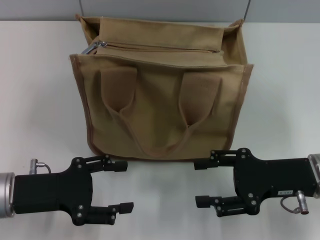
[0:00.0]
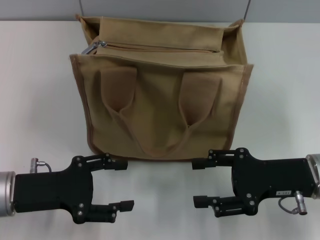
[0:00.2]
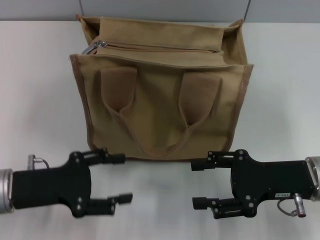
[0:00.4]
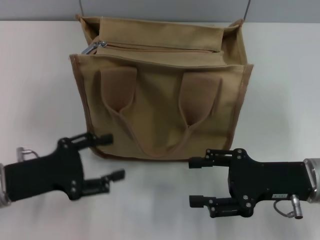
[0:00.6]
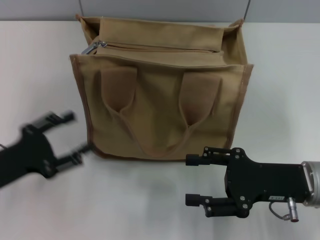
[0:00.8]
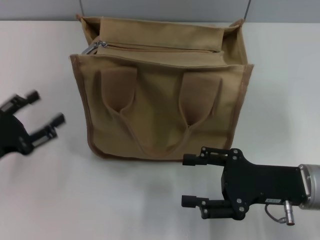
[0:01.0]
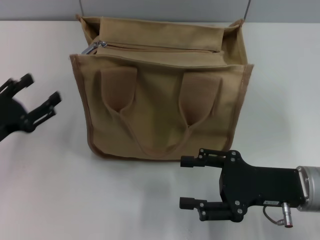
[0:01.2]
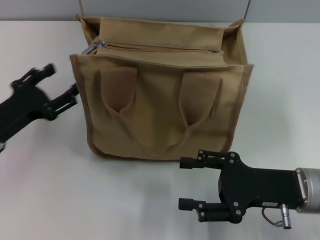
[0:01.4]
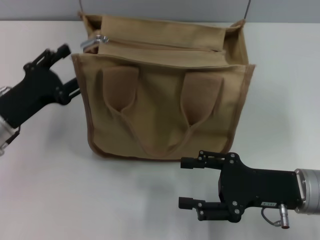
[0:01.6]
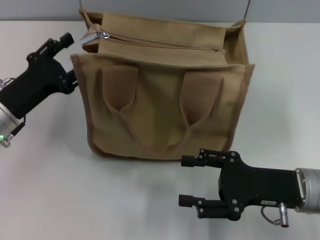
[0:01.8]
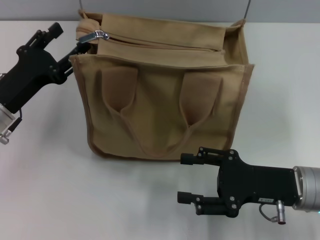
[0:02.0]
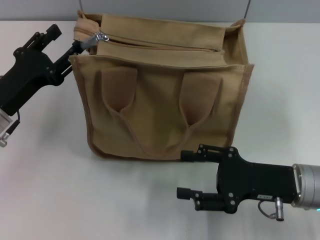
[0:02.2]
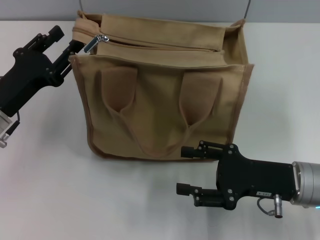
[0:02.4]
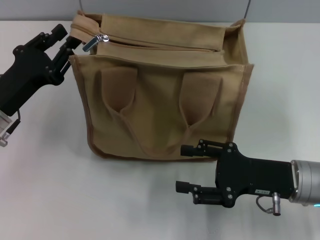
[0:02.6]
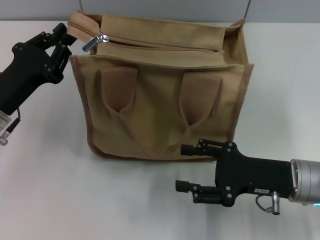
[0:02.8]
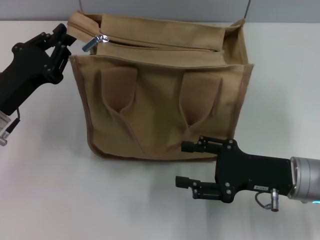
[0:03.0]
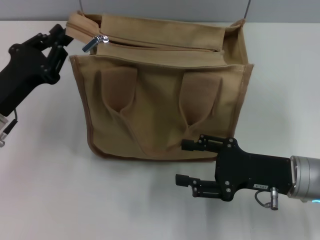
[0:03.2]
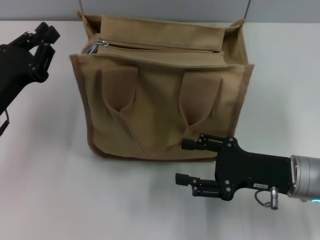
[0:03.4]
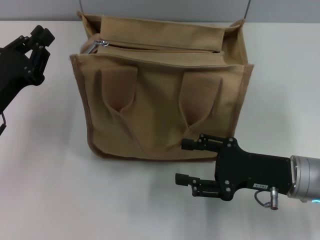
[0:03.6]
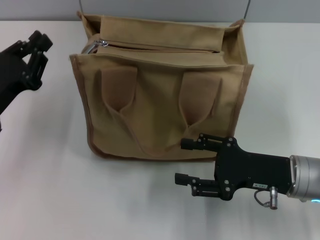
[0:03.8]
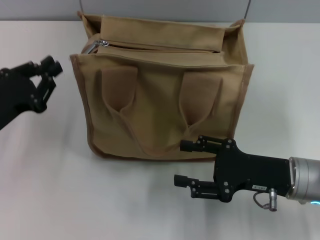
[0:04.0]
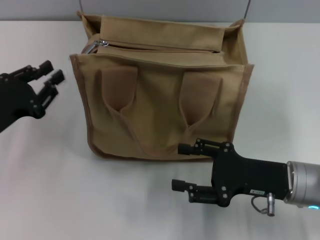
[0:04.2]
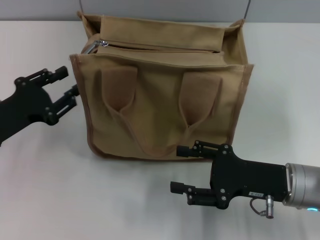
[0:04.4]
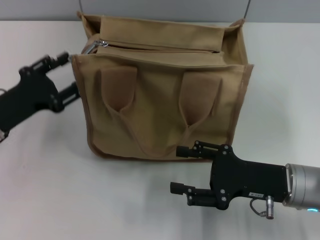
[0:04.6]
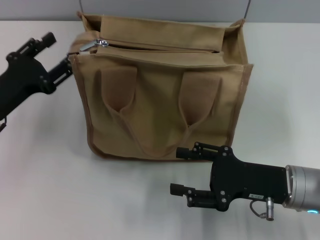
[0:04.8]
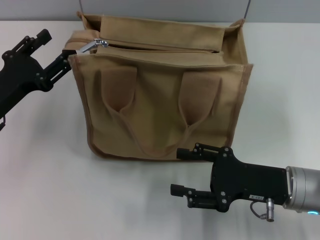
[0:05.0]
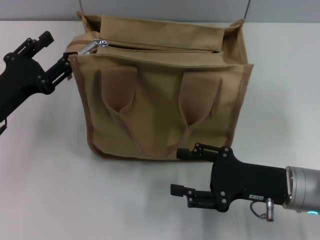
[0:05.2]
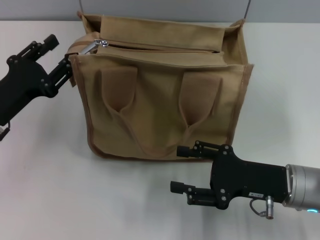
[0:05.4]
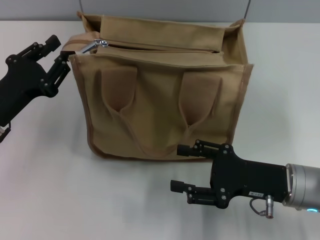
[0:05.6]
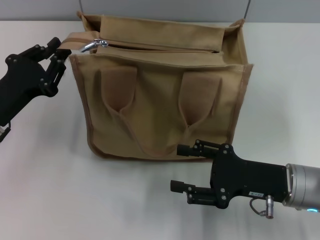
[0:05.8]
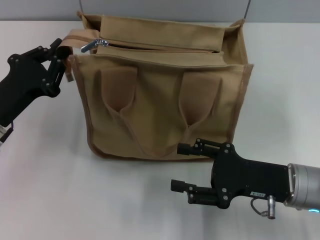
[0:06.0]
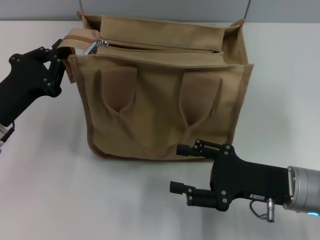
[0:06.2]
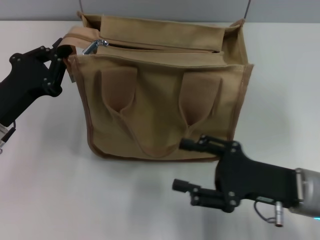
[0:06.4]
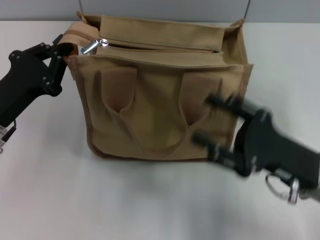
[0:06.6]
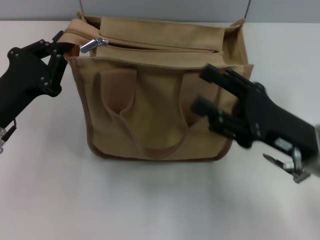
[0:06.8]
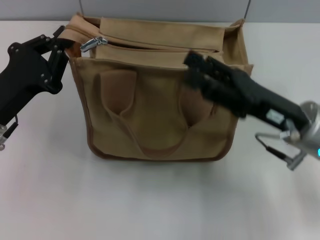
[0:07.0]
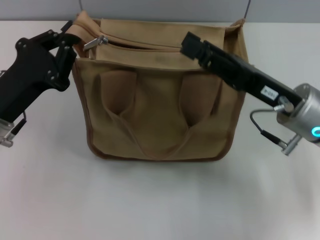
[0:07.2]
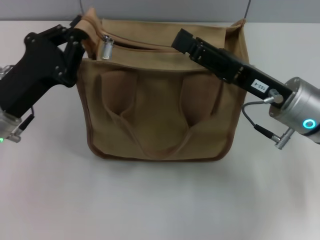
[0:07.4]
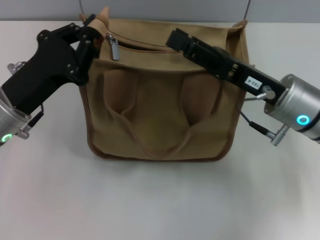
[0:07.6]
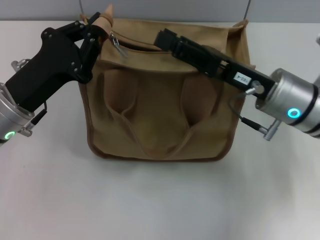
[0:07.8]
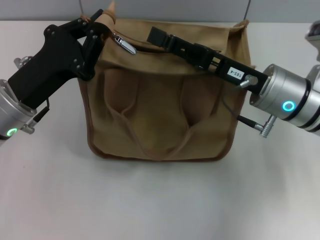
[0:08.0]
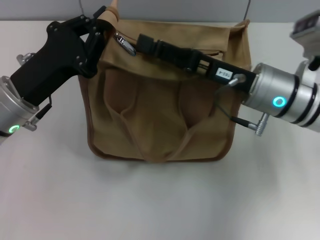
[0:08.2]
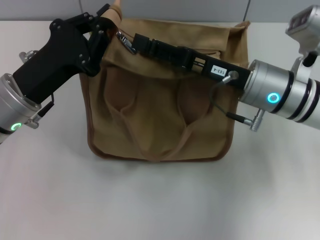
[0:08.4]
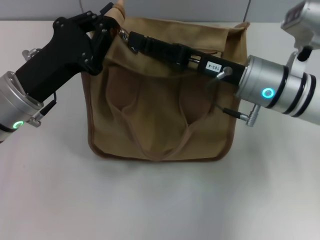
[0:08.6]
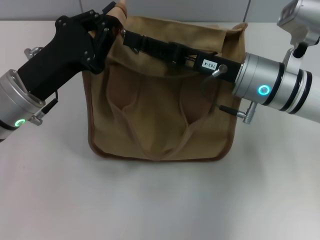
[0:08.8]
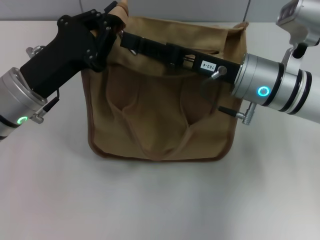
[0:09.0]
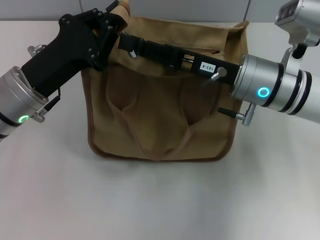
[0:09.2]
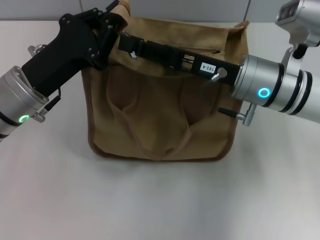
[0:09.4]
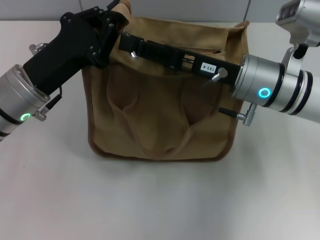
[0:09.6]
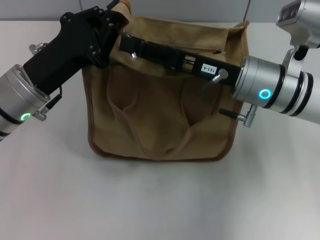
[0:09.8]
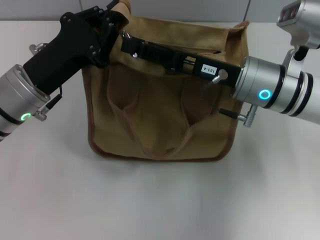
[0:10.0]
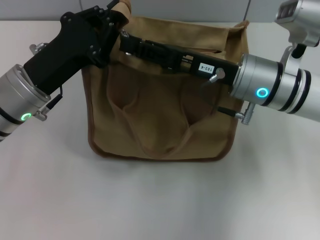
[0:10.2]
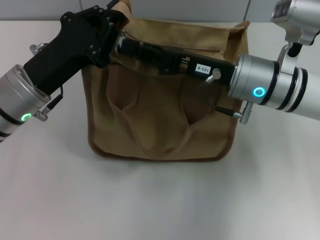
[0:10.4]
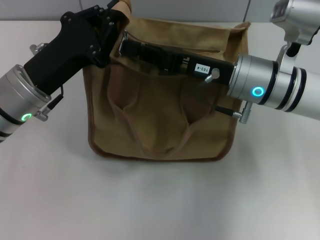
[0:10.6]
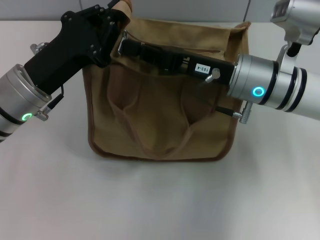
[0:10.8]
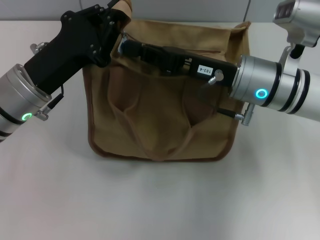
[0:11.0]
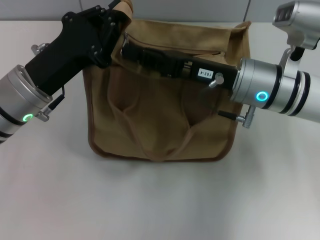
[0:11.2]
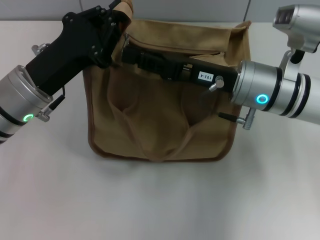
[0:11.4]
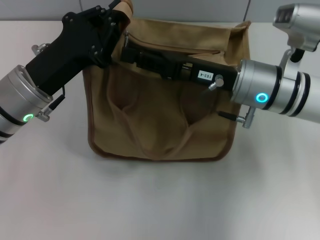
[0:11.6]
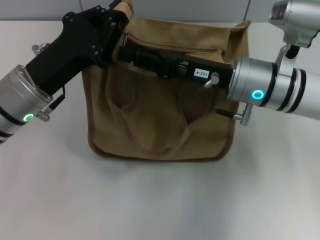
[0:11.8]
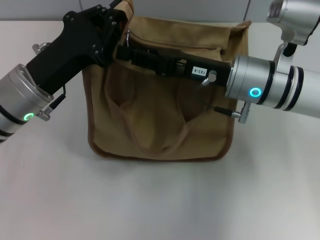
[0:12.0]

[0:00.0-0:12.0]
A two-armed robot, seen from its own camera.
0:00.0 to 0:01.6: The left gripper goes some 5 cm forward.
0:01.6 to 0:03.0: The left gripper closes its fingers.
0:04.4 to 0:06.0: The left gripper opens, then closes again.
0:06.0 to 0:07.6: The right gripper goes approximately 10 cm forward and upward; the left gripper ends up approximately 5 cm from where it was.
0:07.6 to 0:09.0: The right gripper ends up about 5 cm from where it was.
0:09.0 to 0:10.4: The right gripper closes.
0:10.4 to 0:12.0: The right gripper closes, then opens again.

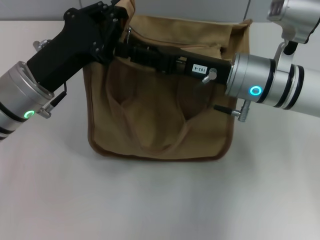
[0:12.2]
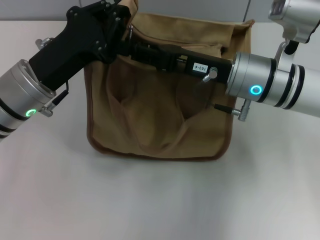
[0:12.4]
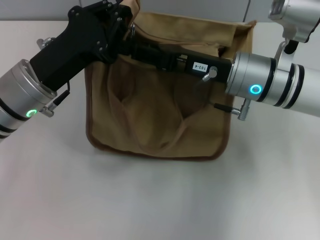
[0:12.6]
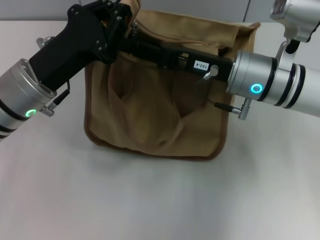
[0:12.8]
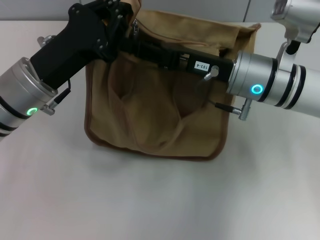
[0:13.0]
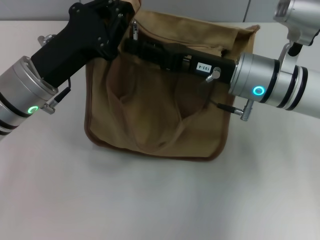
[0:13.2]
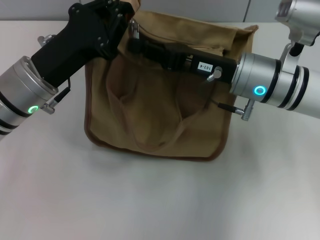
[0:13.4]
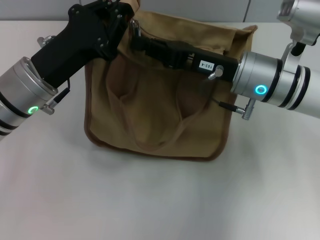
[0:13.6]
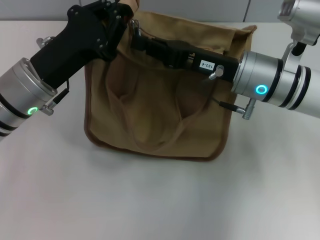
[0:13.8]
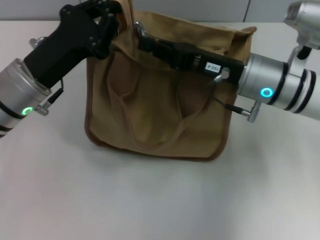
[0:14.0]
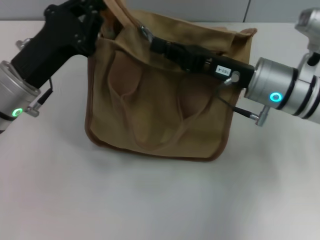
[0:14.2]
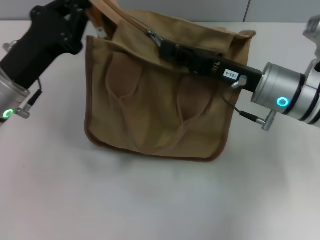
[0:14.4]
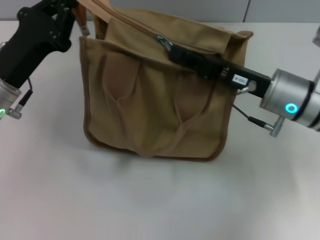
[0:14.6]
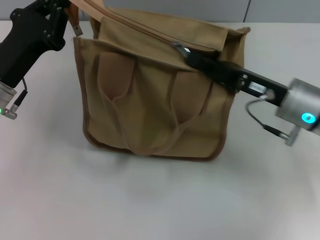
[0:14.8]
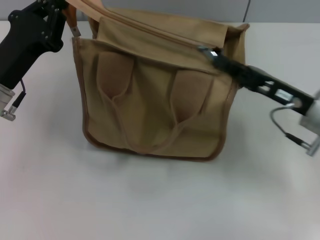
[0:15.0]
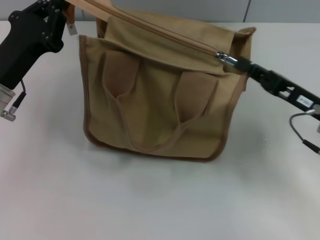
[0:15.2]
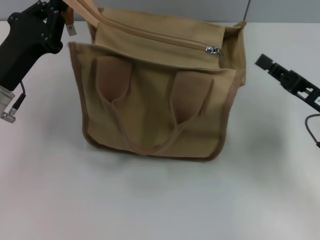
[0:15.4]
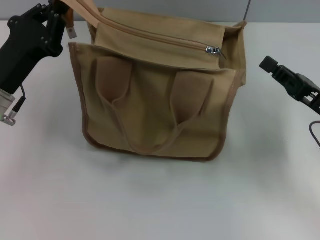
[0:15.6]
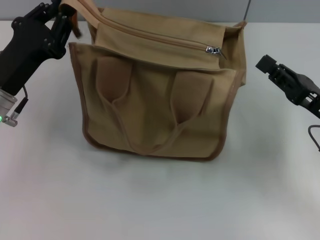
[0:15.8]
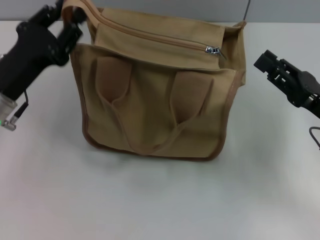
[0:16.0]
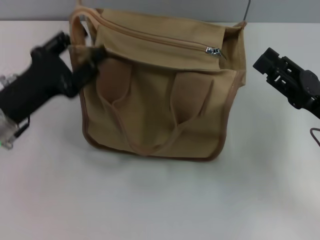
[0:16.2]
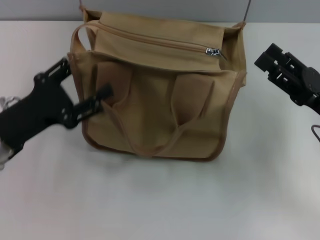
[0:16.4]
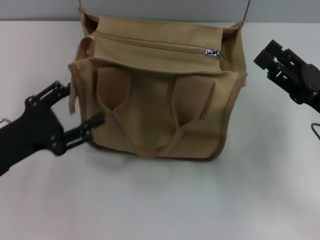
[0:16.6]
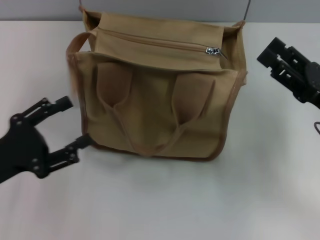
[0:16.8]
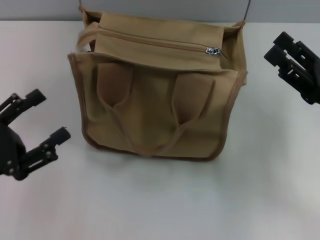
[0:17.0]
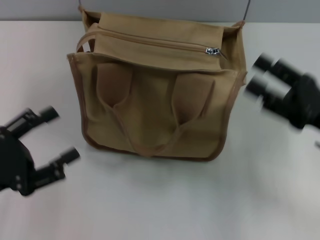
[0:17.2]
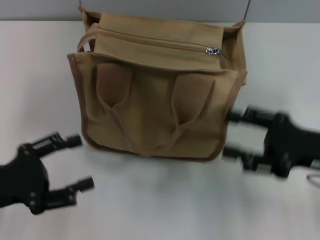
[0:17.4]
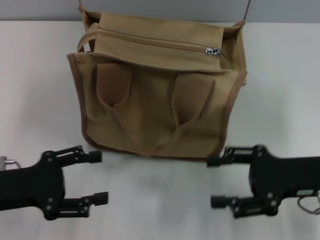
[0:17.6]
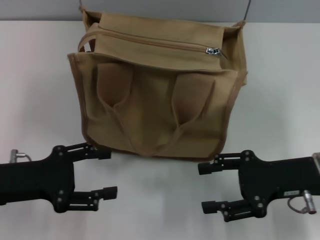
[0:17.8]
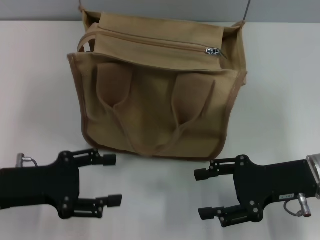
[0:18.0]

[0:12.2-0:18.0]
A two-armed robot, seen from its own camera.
Step, 0:12.2 to 0:15.4: Pull up the zipper with your right hand.
Step, 0:15.8 to 0:16.4: Grab the zipper with your left hand.
0:12.2 to 0:13.6: The right gripper closes its fingers.
0:13.6 to 0:15.0: The right gripper shifts approximately 10 cm to the right. The left gripper travels to the left by approximately 5 cm.
0:15.0 to 0:16.6: The left gripper is displaced backward by some 5 cm, and opens up. Meanwhile the right gripper ends up about 5 cm from where it was, and opens up.

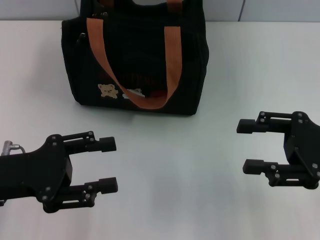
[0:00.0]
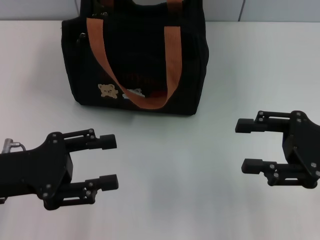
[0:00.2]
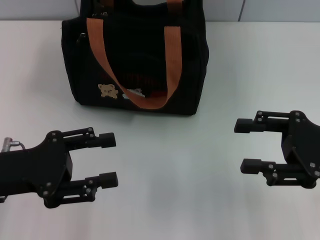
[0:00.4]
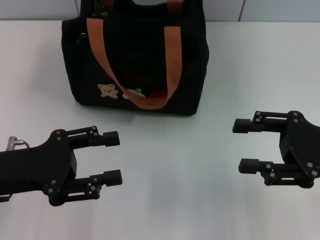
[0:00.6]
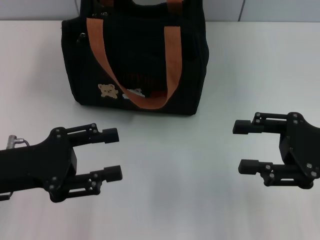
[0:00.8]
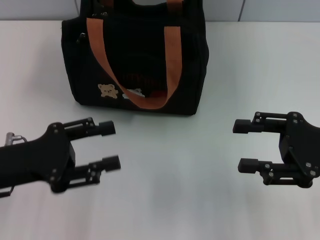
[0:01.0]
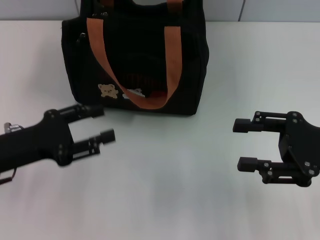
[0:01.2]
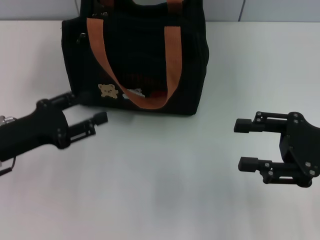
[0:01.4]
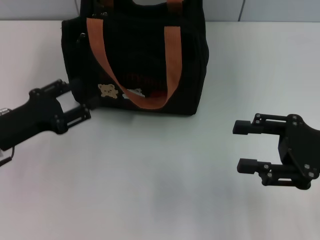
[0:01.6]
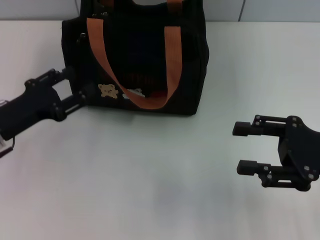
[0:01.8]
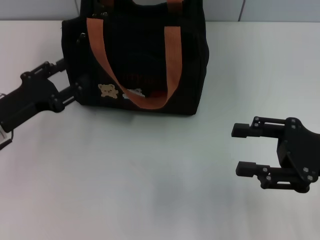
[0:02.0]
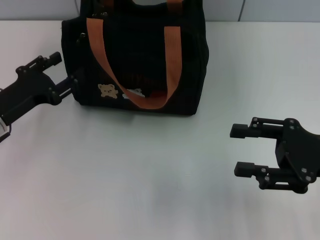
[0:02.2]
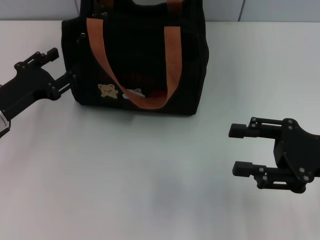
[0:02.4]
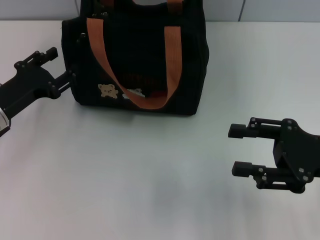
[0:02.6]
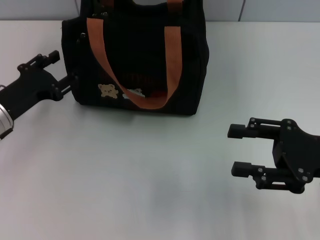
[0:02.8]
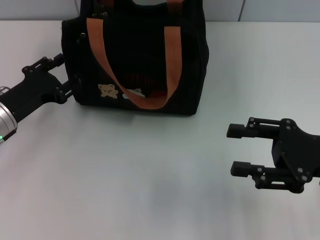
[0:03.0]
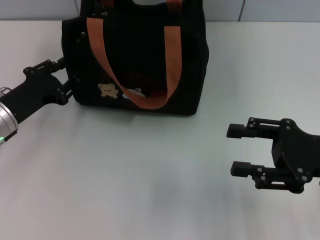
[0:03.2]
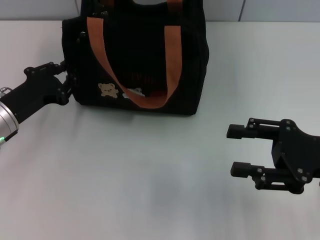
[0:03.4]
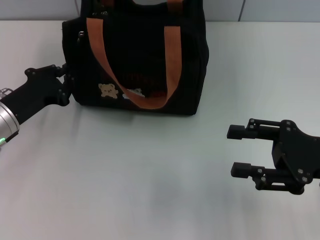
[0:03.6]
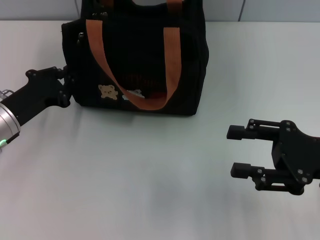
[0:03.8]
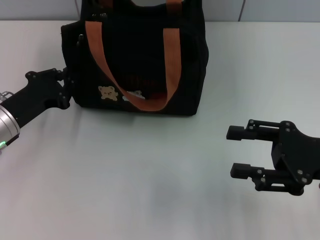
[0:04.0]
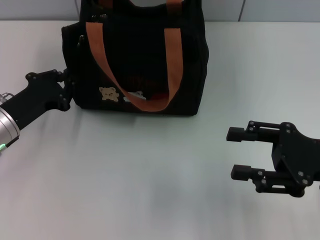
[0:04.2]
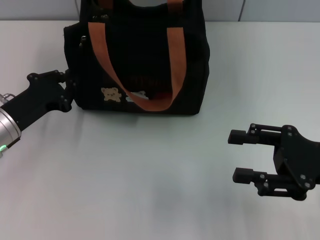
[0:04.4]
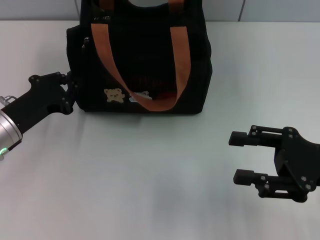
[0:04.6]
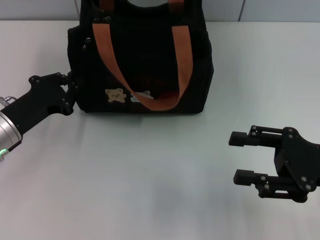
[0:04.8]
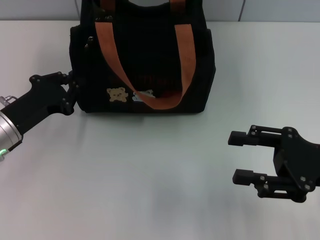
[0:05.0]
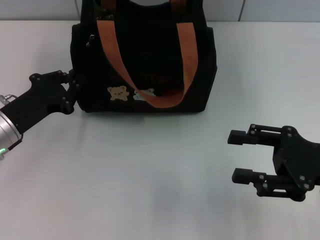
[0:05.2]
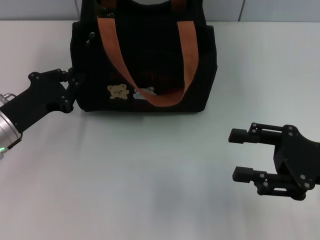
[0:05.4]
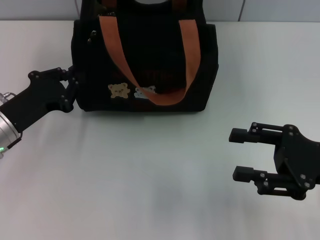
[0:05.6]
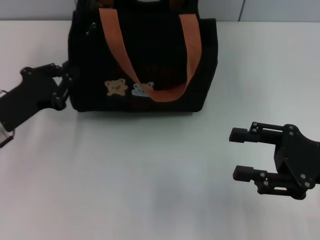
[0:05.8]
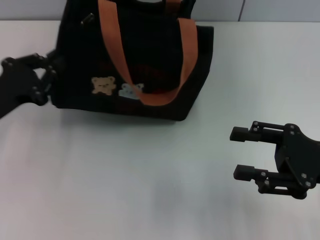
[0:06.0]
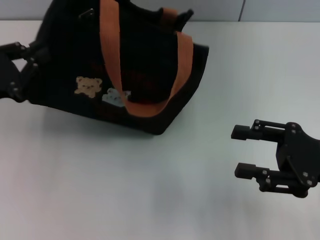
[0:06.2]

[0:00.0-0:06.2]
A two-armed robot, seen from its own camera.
0:00.0 to 0:01.6: The left gripper shifts by about 5 cm.
0:01.6 to 0:03.2: There are only small adjustments of the grippers.
0:03.2 to 0:04.6: The left gripper closes.
0:04.6 to 0:06.2: The left gripper is displaced upward by some 10 cm.
